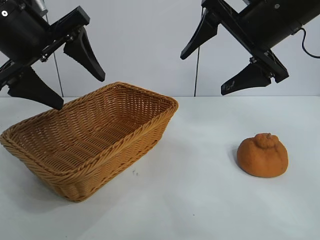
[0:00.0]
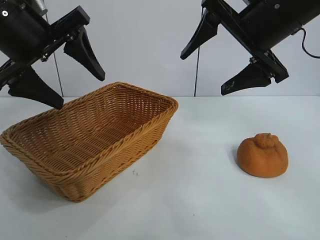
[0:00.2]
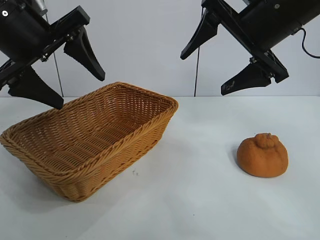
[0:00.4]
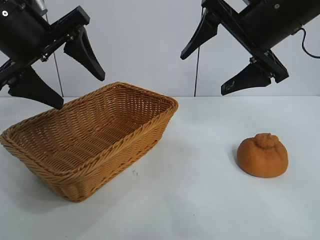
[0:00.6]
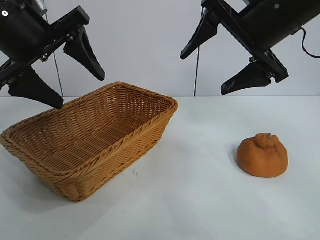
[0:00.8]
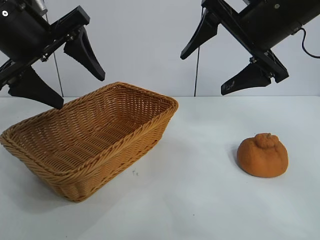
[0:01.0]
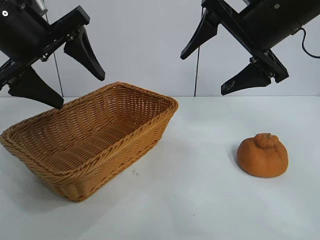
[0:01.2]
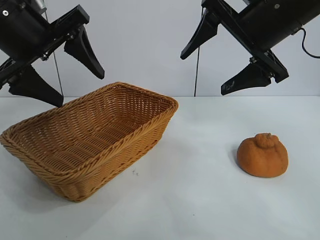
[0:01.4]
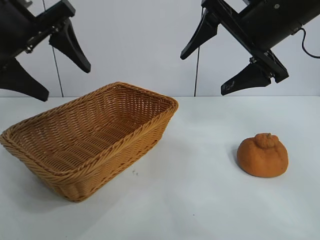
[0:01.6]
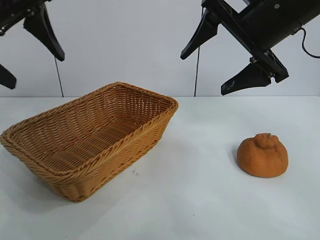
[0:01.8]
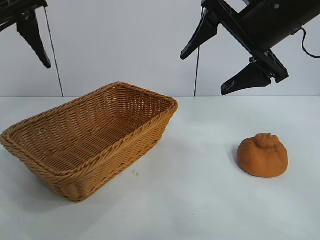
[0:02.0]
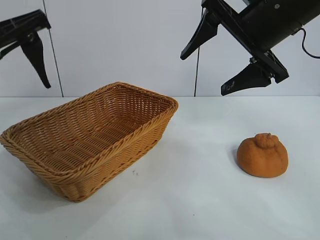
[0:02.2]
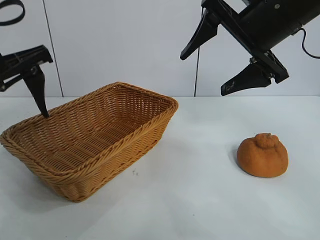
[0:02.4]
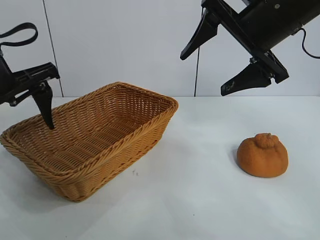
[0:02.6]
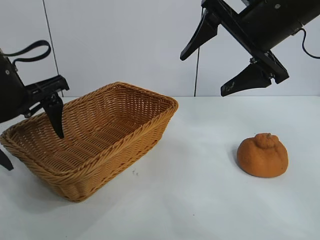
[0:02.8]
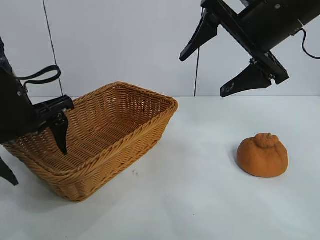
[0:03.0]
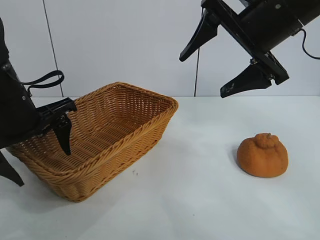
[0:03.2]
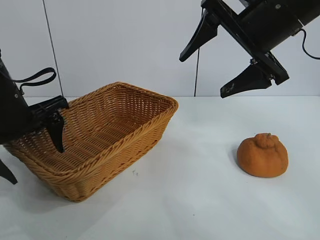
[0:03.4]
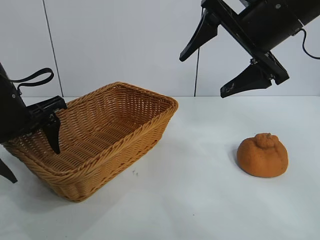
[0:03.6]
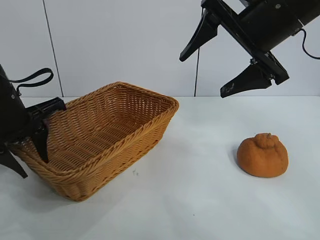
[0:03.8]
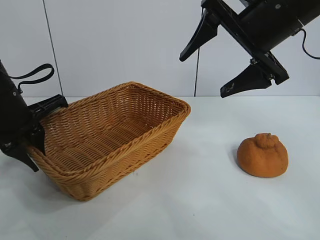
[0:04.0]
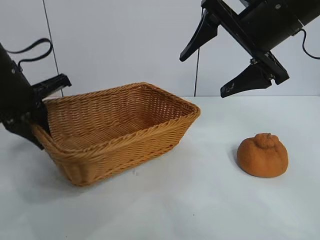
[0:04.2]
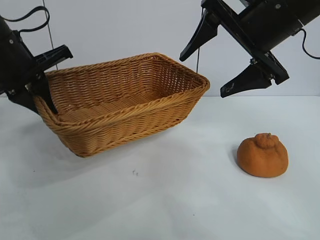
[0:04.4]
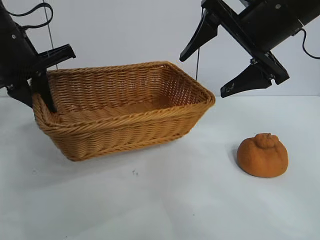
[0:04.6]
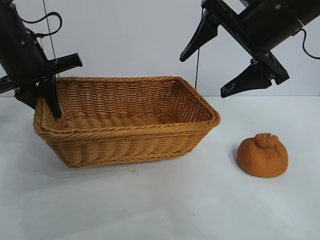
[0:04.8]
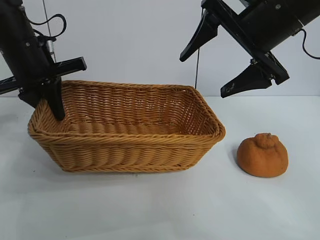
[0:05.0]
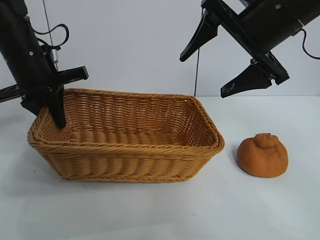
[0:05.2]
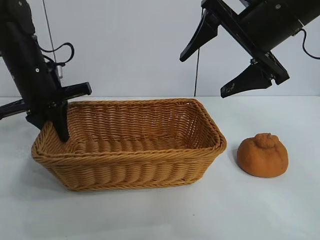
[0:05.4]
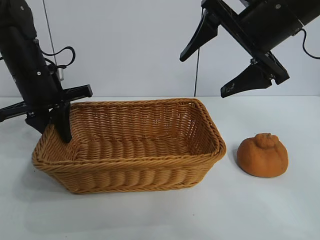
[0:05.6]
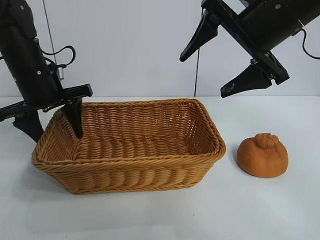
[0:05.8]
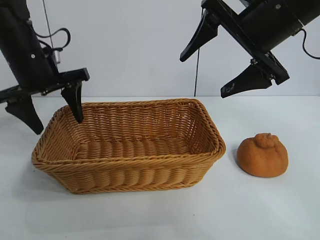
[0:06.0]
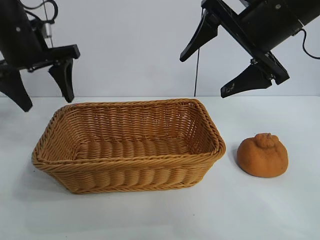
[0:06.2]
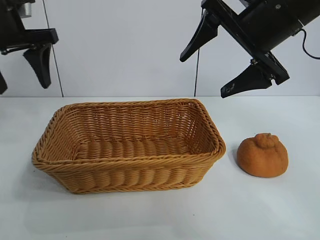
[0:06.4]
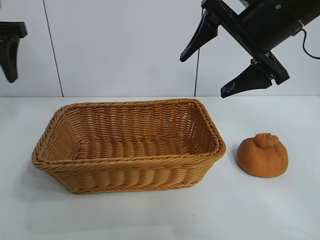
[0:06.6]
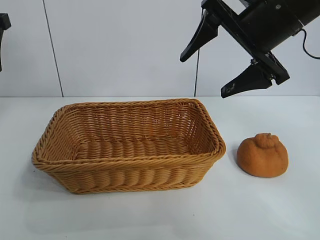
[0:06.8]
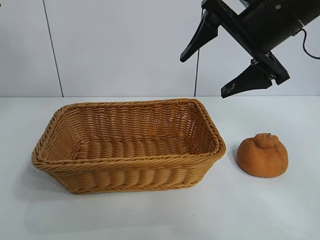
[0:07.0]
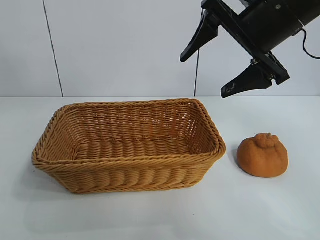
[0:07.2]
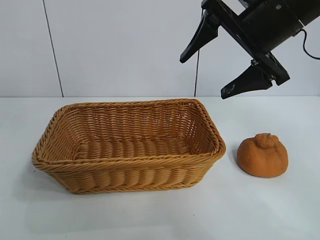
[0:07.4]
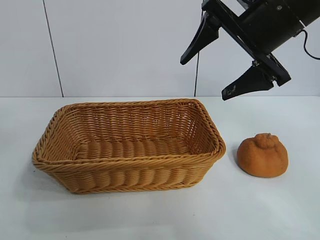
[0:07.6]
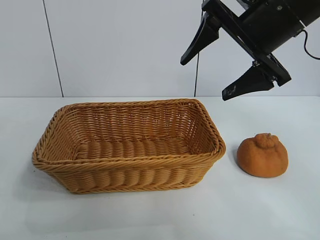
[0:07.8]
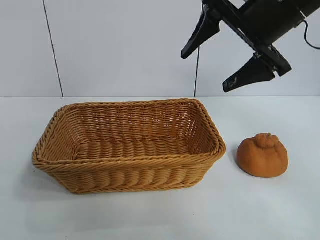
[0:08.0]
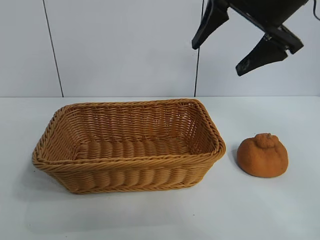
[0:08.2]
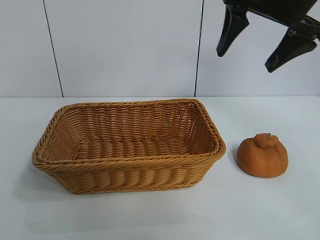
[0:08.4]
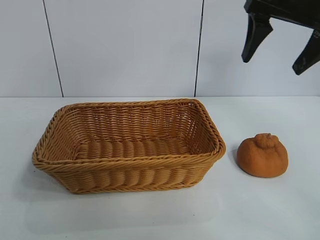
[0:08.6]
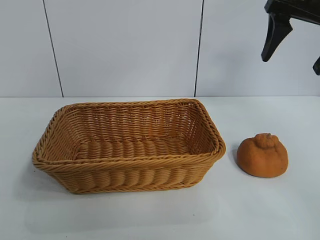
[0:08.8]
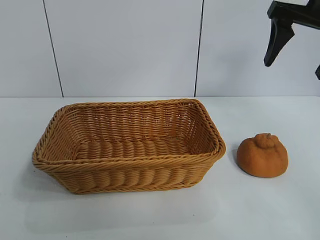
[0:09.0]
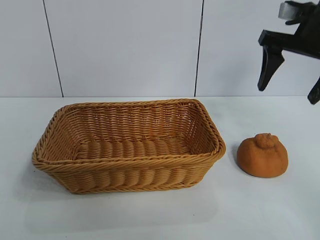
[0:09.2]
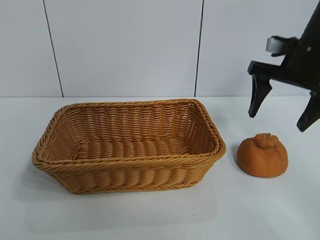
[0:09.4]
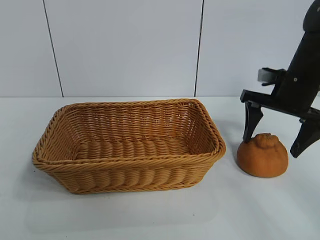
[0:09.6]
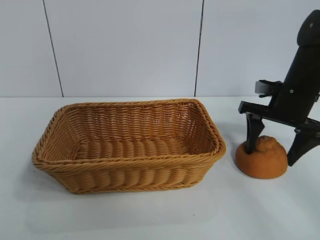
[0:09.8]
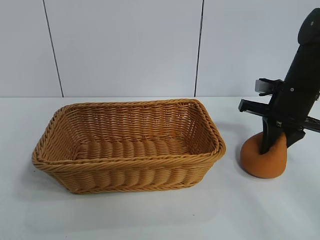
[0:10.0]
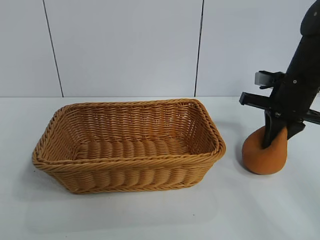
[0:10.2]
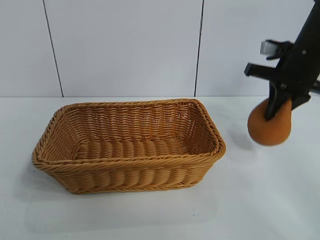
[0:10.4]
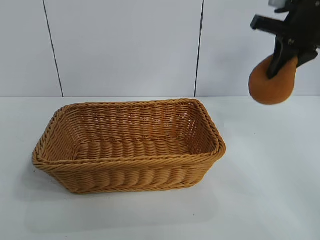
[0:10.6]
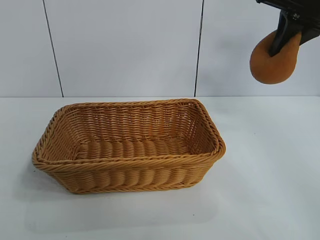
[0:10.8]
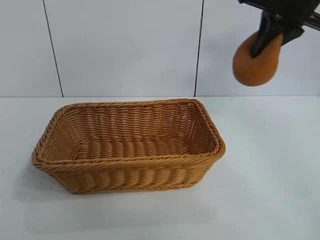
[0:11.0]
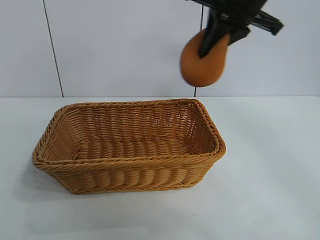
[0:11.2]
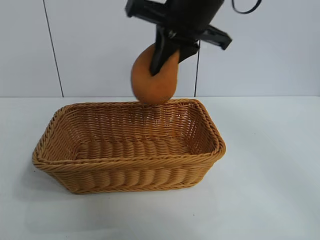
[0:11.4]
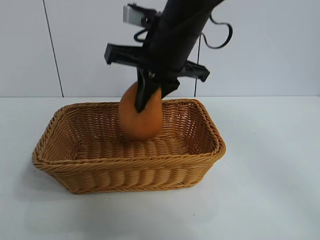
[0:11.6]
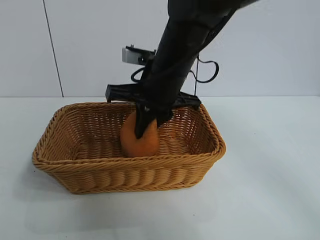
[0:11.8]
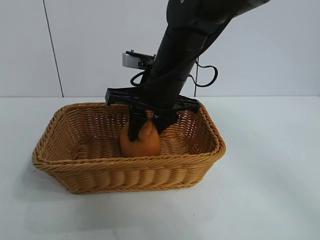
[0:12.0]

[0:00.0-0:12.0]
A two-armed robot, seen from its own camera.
Task of the whole recording: pick up the orange and put it into the basket.
Step, 0:01.2 to 0:04.0: Grasp the basket with left gripper.
Step, 0:04.2 to 0:05.8: Place the basket in the center of view with left gripper.
Step, 0:06.0 to 0:10.0: Grasp the orange with right gripper.

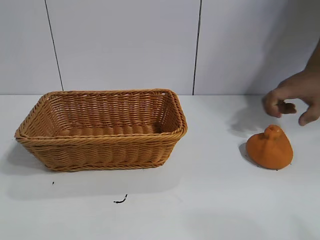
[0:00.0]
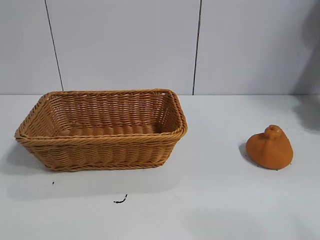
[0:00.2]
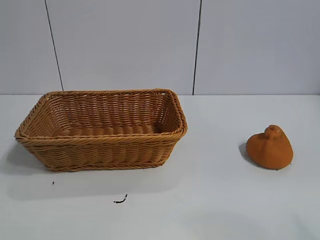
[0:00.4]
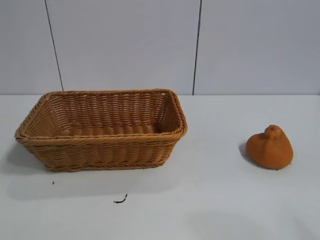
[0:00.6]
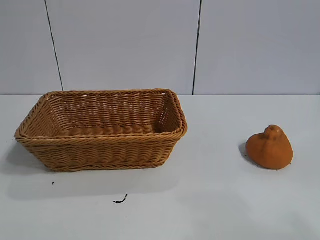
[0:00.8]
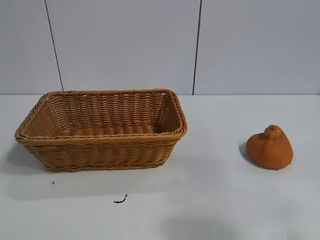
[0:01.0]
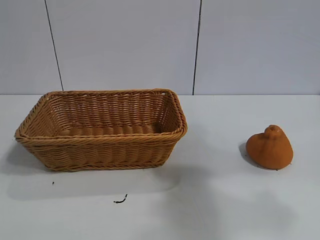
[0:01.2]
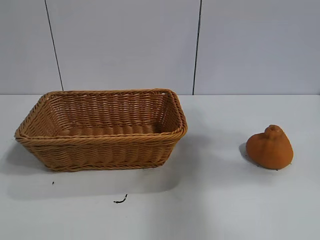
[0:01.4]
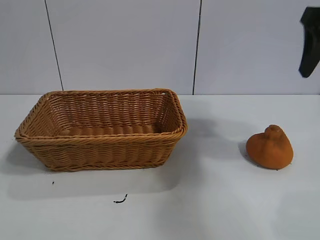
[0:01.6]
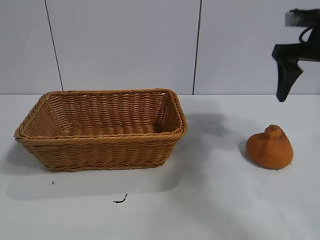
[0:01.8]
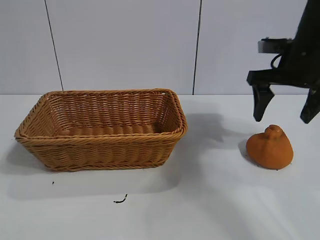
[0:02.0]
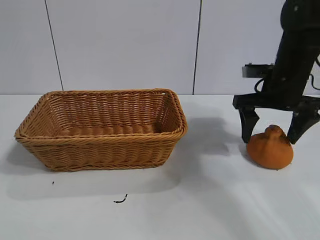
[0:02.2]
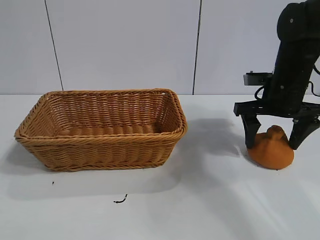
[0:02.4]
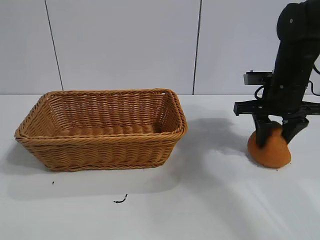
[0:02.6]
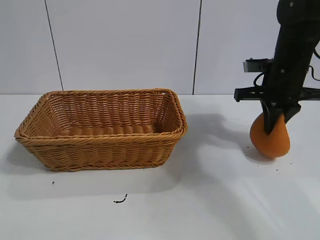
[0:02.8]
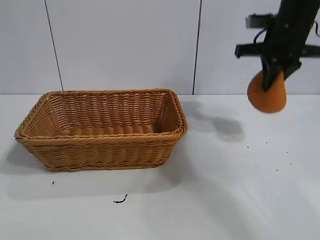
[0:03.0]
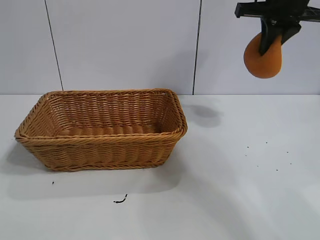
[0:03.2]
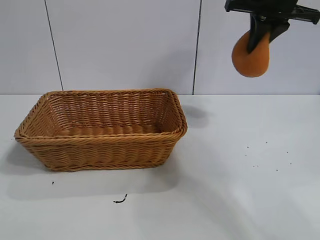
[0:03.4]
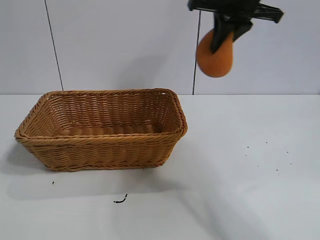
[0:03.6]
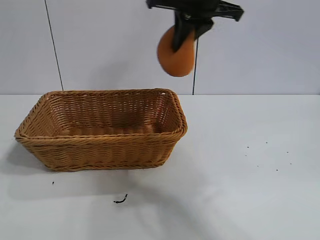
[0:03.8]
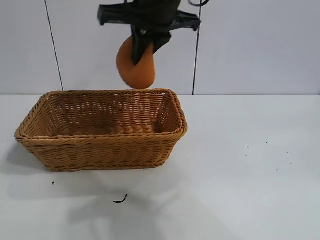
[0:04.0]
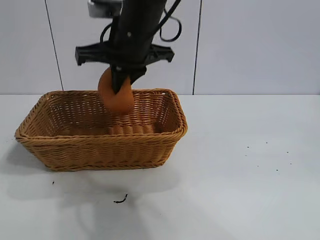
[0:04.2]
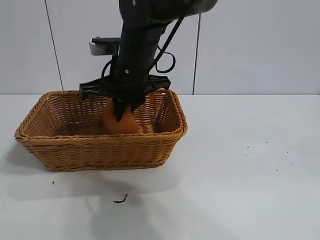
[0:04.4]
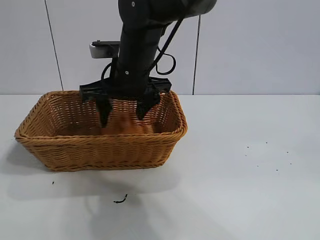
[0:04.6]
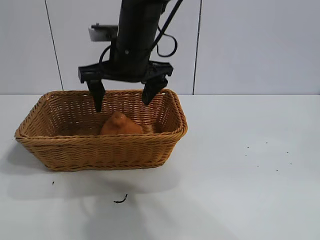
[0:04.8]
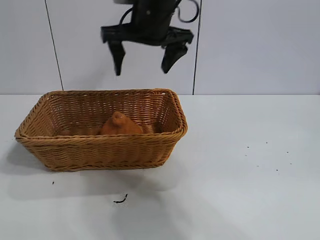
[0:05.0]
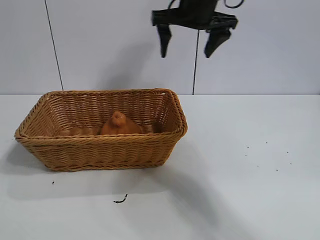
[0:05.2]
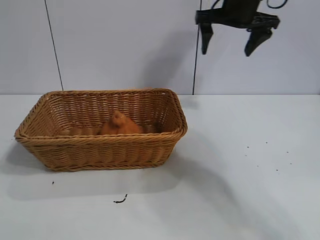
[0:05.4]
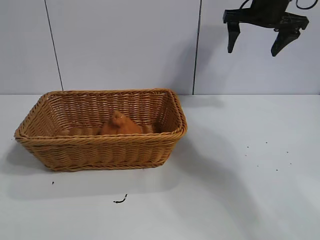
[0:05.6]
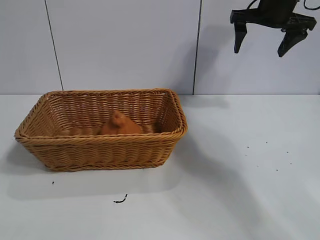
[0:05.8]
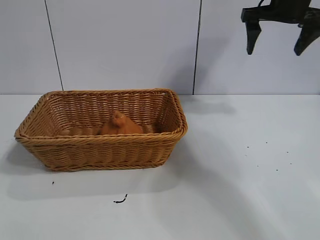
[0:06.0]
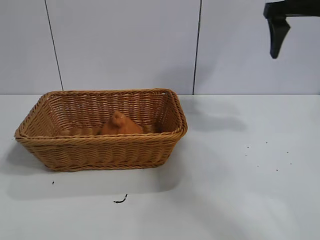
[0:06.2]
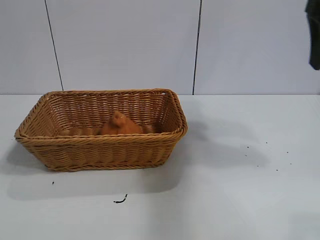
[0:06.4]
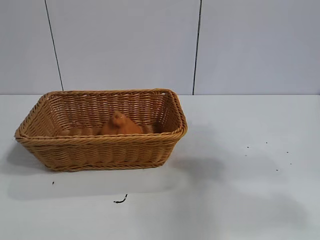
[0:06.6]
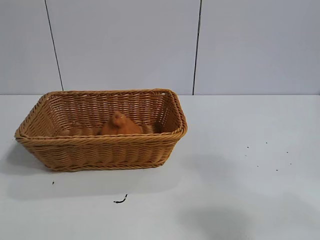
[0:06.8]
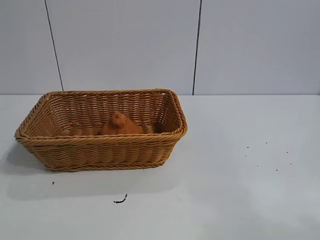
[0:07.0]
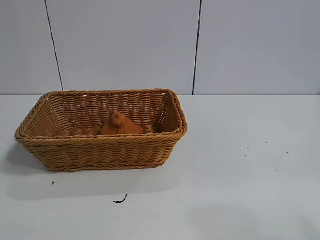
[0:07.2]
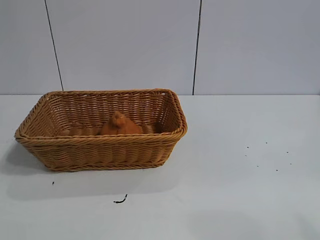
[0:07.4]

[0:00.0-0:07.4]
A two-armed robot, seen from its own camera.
Task of the whole recording: pick up the orange and put it into the basket.
Step, 0:00.8 to 0:02.6: Grasp the orange with right gripper.
Step, 0:02.8 to 0:04.6: Place the orange in the basket with right gripper.
